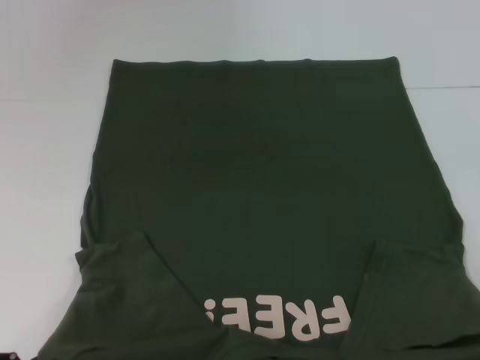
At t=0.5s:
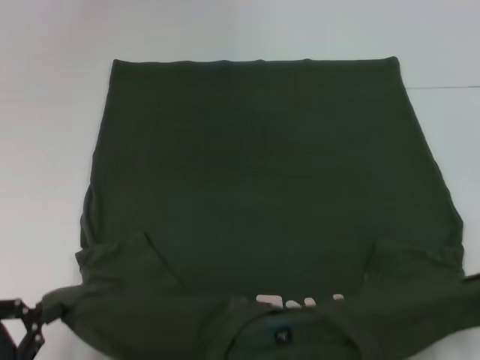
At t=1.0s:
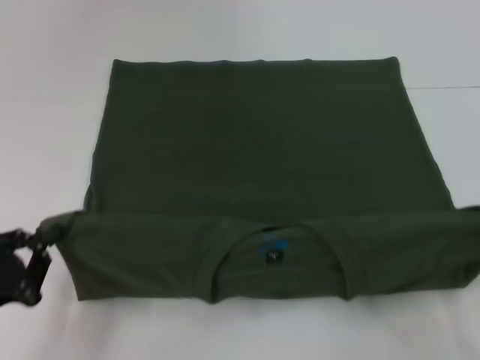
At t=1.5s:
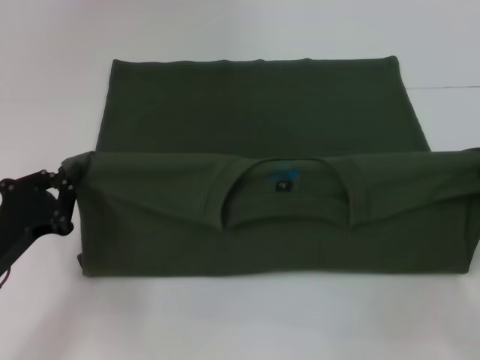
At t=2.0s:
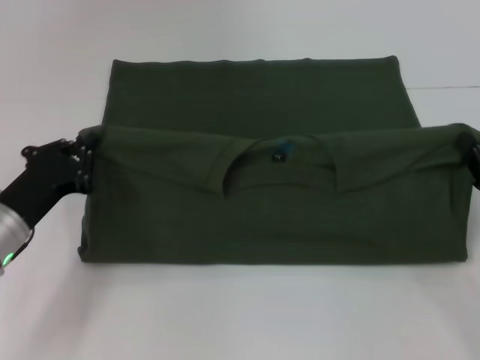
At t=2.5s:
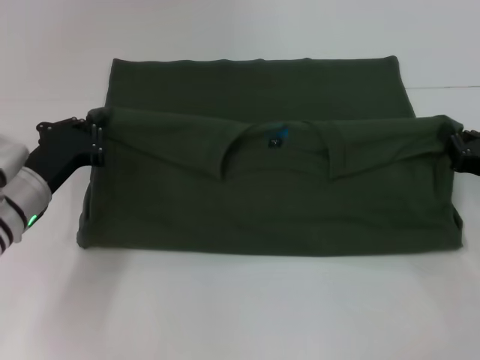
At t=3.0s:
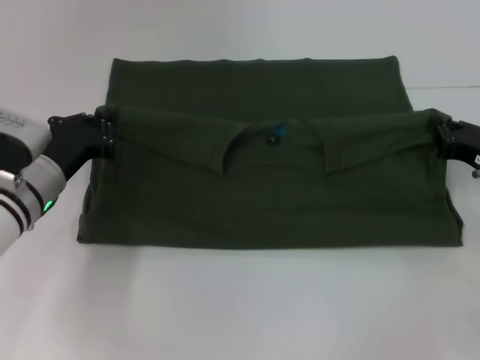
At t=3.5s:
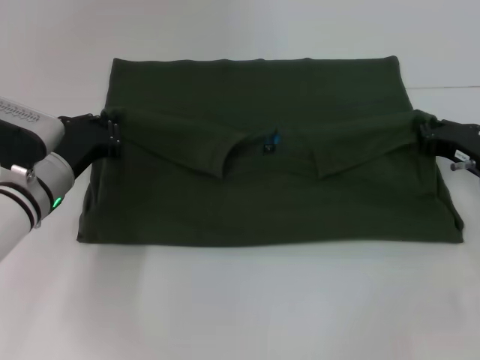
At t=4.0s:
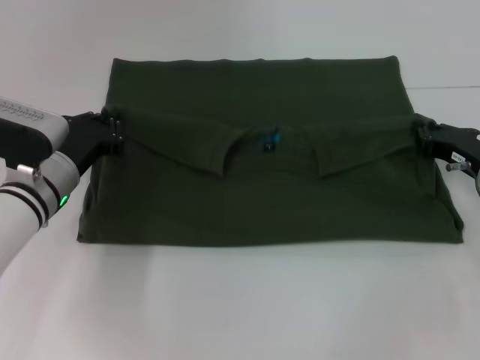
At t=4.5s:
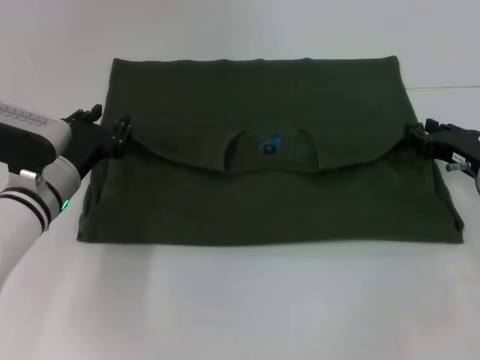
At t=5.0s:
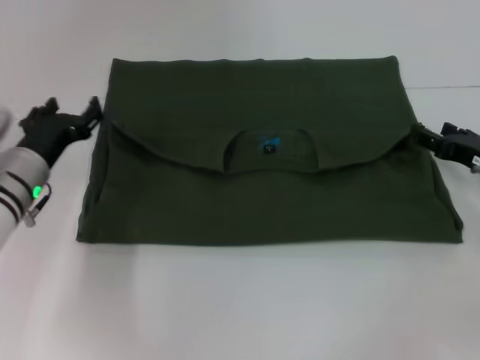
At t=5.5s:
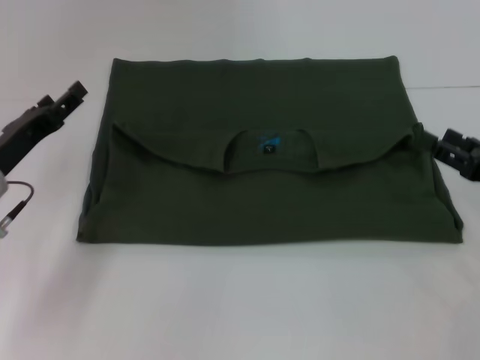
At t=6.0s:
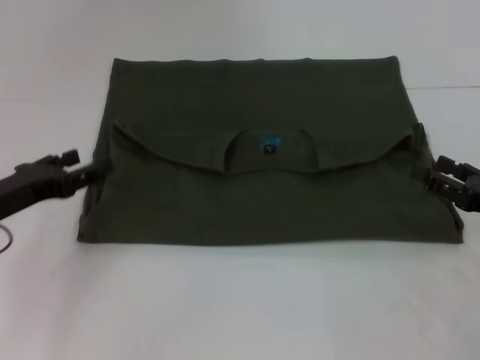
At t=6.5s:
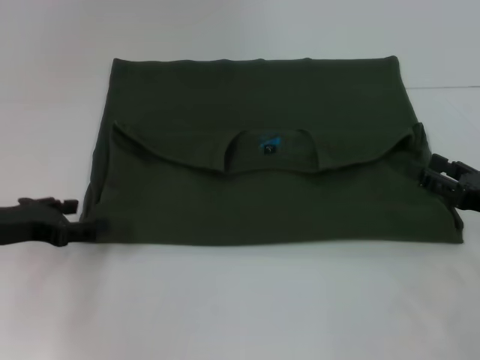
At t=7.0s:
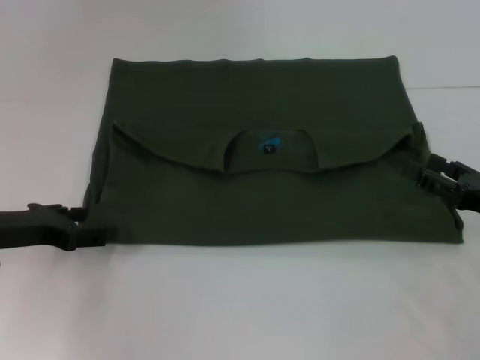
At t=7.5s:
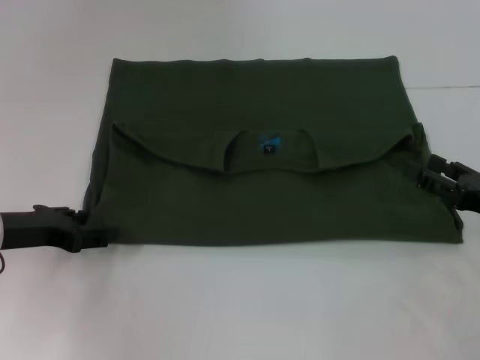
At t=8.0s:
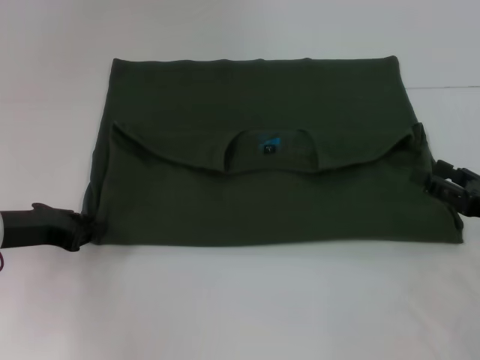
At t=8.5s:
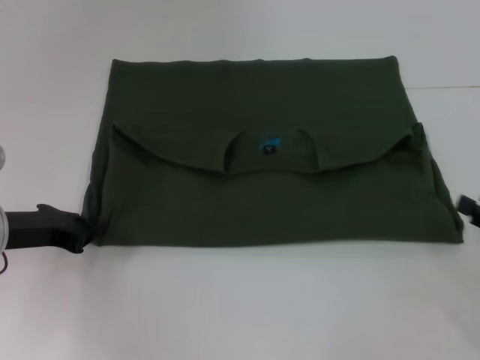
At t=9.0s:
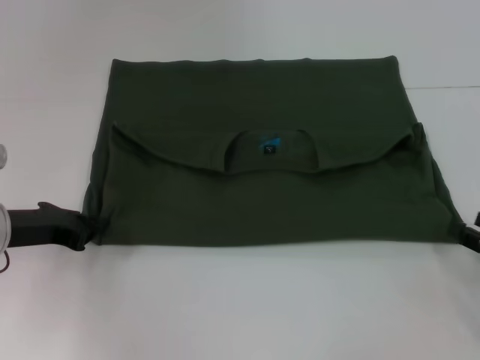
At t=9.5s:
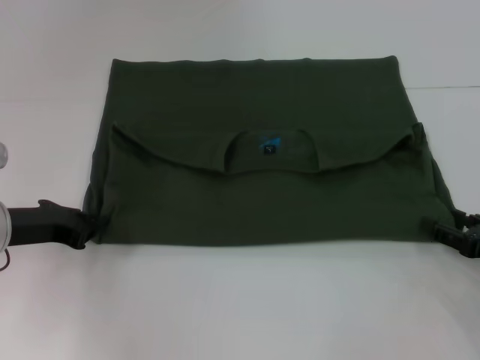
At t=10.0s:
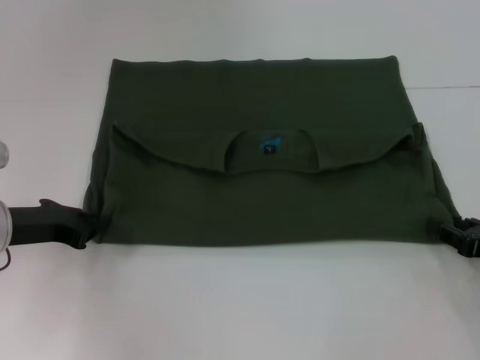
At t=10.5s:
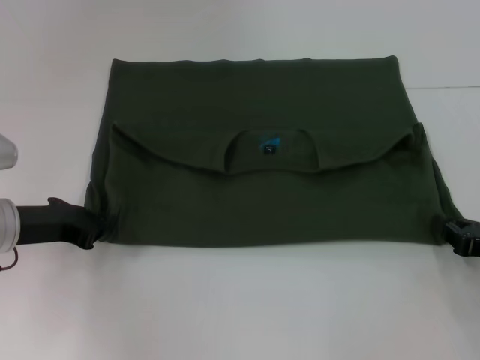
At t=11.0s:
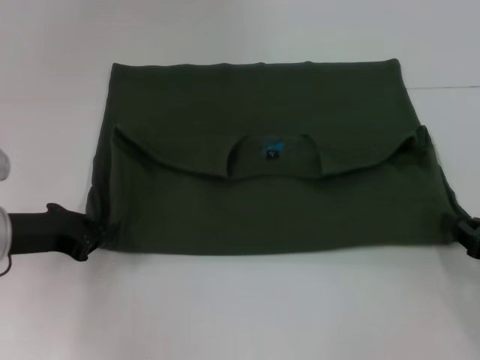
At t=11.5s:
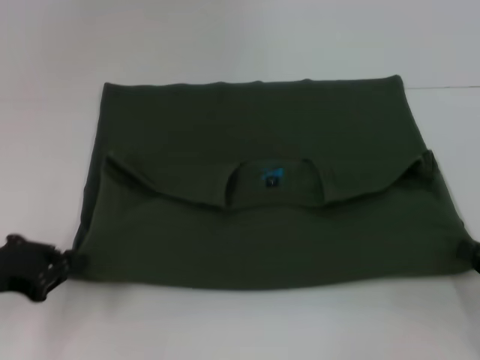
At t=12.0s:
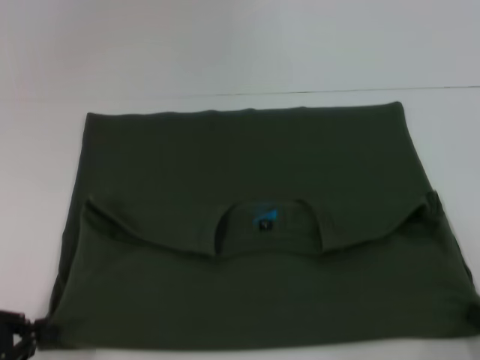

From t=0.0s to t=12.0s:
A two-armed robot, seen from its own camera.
Step, from t=0.0s to t=4.5s: Fold the clothes with your left hand.
Step, from t=0.0s to t=4.5s: Fold the clothes with your right hand.
From t=0.0s to t=2.0s: The two grippers go approximately 20 cm forward.
From t=2.0s to t=4.0s: The two grippers go about 10 cm forward.
From t=4.0s to t=6.0s: The left gripper goes approximately 10 cm to the left and backward, and opens up. Meanwhile the right gripper goes approximately 10 cm backward, and opens.
From t=6.0s to t=8.0s: The left gripper closes up.
From t=8.0s to t=10.0s: The left gripper closes its fingers.
From t=10.0s to t=12.0s: The right gripper travels backward by roughly 10 cm, and closes up, while the left gripper heads backward and to the left, covering roughly 15 cm.

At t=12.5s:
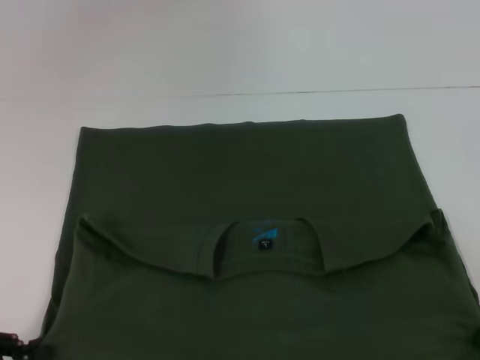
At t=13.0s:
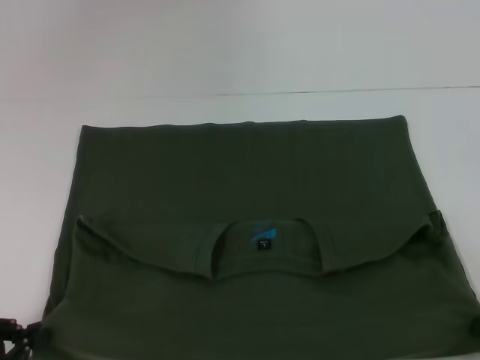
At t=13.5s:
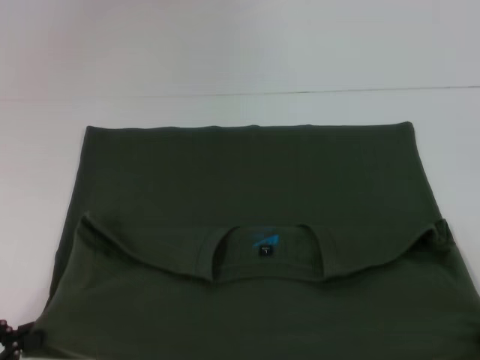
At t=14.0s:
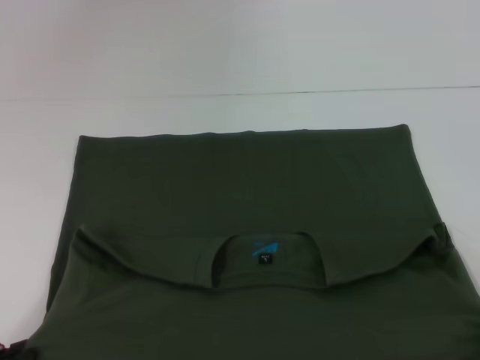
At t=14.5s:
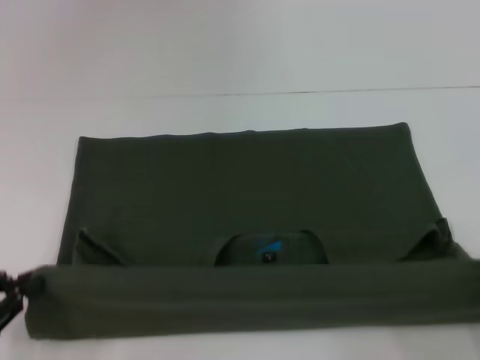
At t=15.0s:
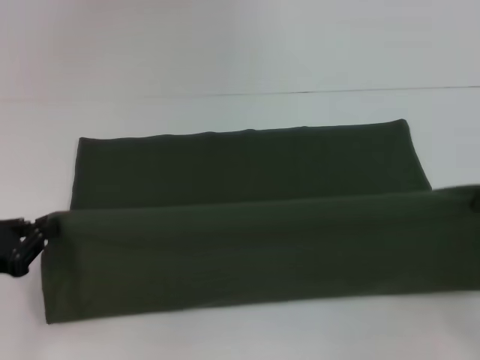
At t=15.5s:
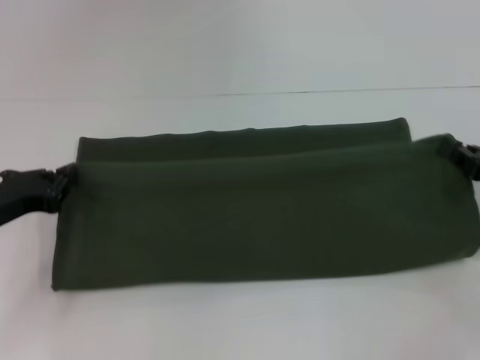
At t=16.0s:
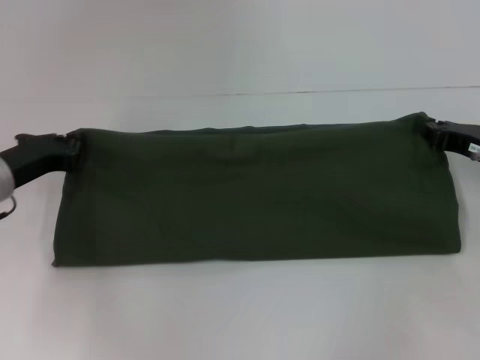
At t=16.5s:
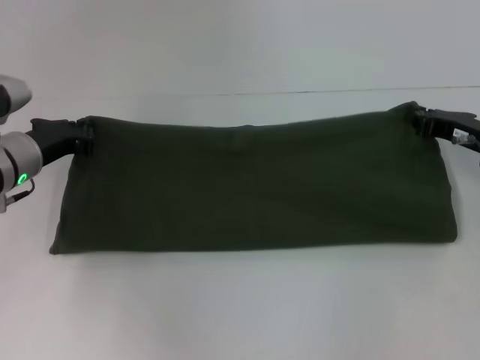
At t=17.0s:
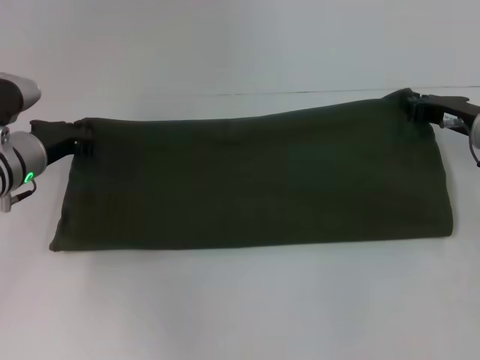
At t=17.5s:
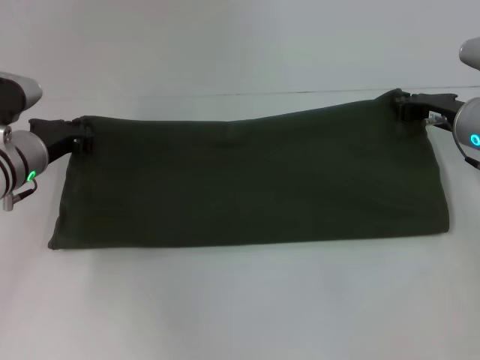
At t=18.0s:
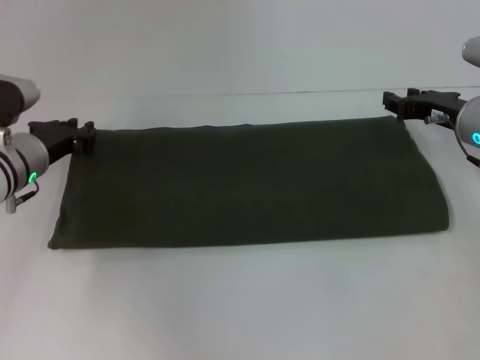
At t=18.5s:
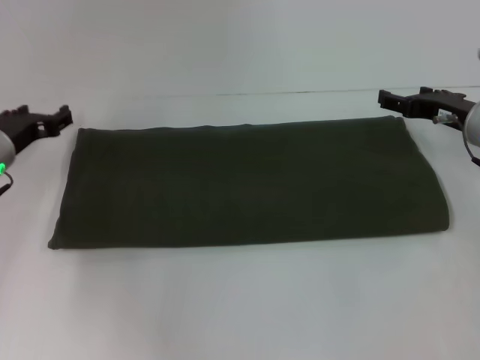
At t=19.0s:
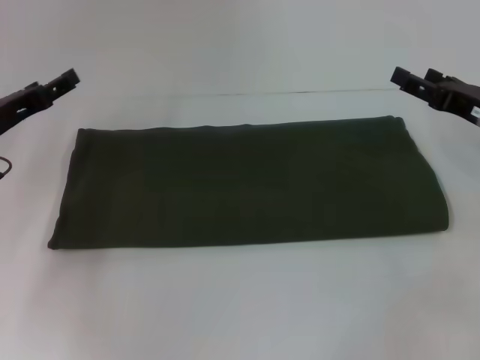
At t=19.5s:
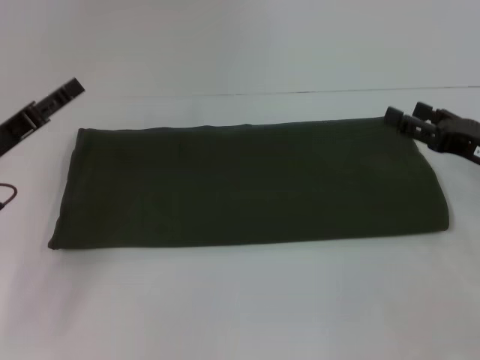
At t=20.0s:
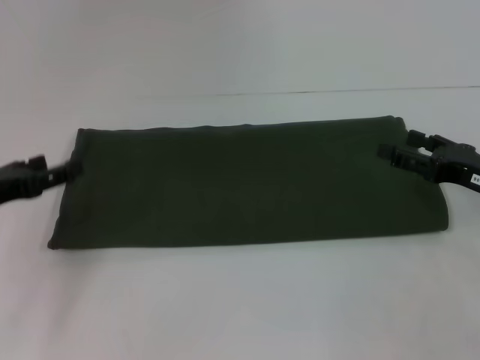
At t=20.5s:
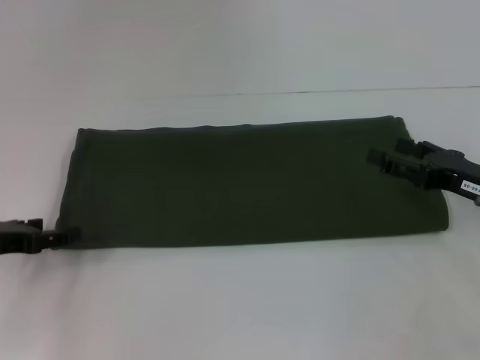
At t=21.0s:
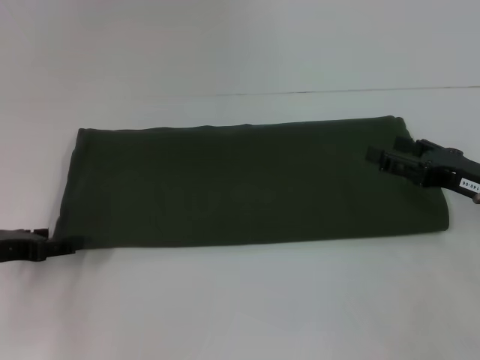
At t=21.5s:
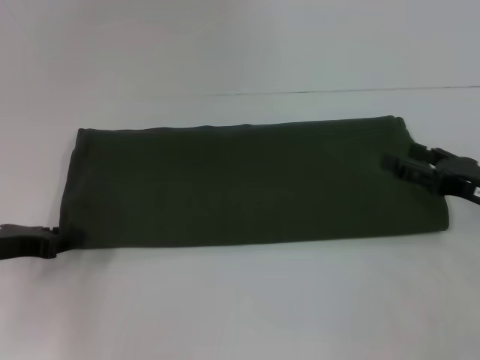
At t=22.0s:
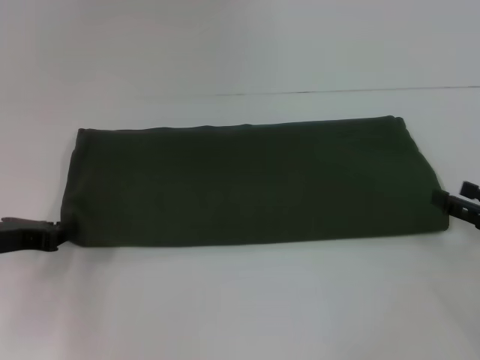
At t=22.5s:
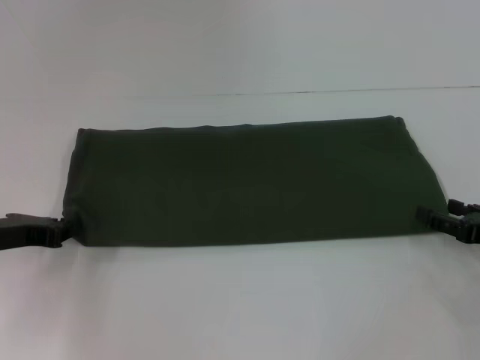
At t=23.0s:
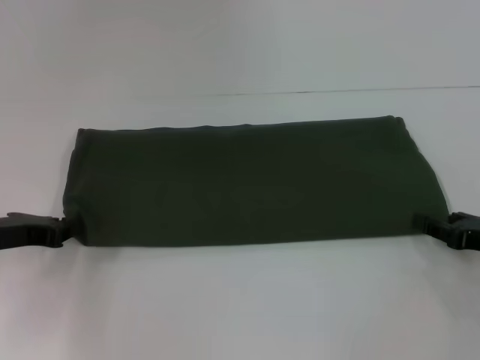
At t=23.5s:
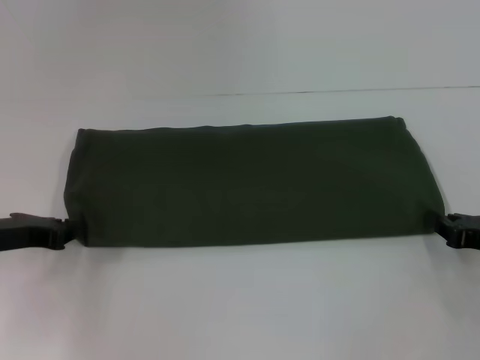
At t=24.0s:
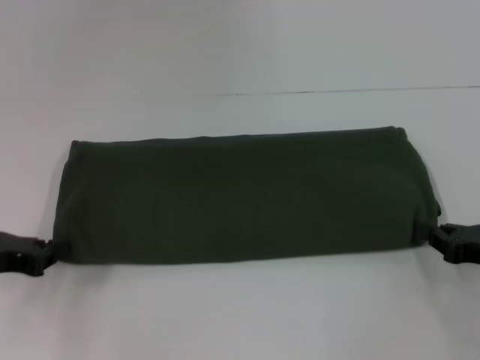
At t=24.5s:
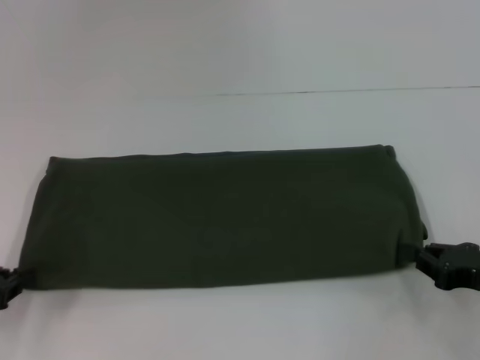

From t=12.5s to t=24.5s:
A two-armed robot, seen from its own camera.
Step, from t=14.0s to t=18.0s: Fold the clothes with your right hand.
From t=12.5s to t=14.5s: The grippers stay close to where they were, moving slightly.
From t=14.5s to t=16.5s: The right gripper goes approximately 25 cm forward. The left gripper moves forward and to the right, roughly 25 cm.
From t=16.5s to t=18.5s: The left gripper opens its fingers. The right gripper opens up.
From t=18.5s to t=20.5s: The right gripper heads backward, covering some 10 cm. Meanwhile the left gripper heads backward and to the left, covering approximately 10 cm.
From t=20.5s to t=22.5s: The right gripper changes place by some 5 cm. Meanwhile the left gripper closes.
From t=22.5s to t=24.5s: The right gripper closes. Meanwhile the left gripper heads backward, covering about 5 cm.

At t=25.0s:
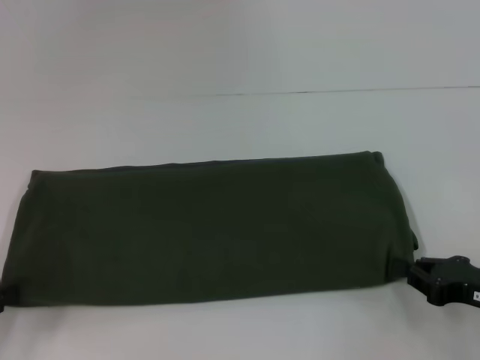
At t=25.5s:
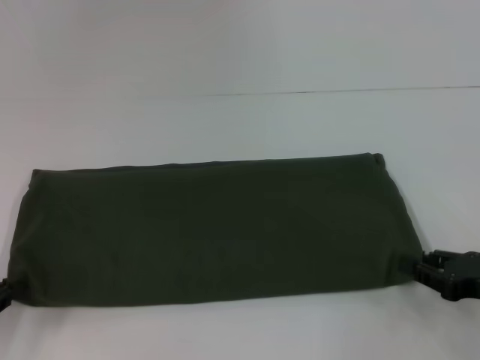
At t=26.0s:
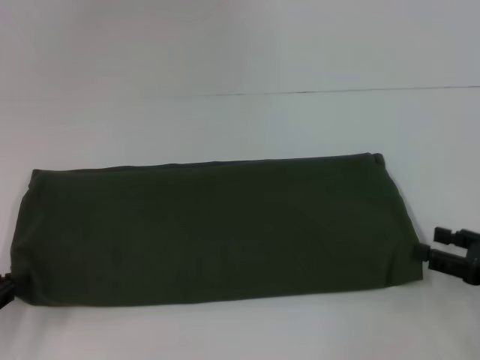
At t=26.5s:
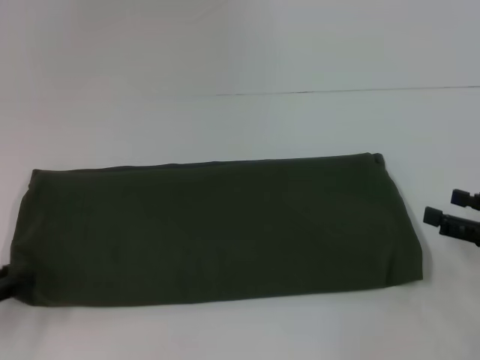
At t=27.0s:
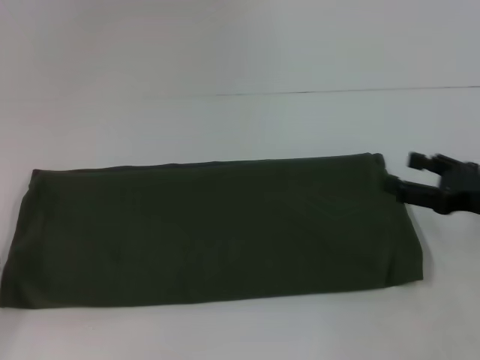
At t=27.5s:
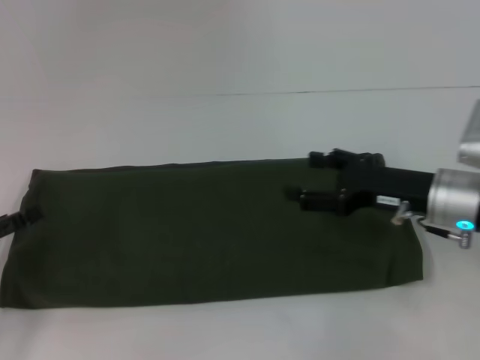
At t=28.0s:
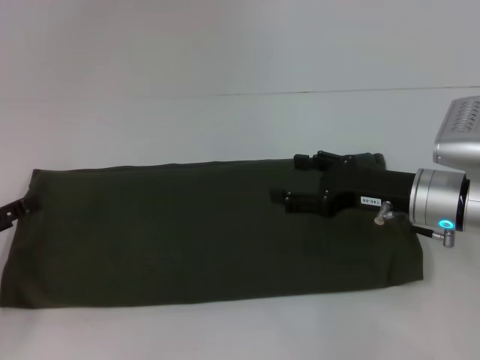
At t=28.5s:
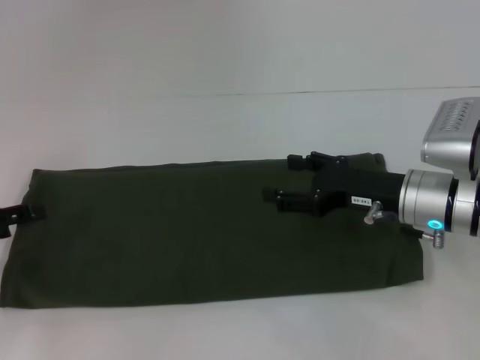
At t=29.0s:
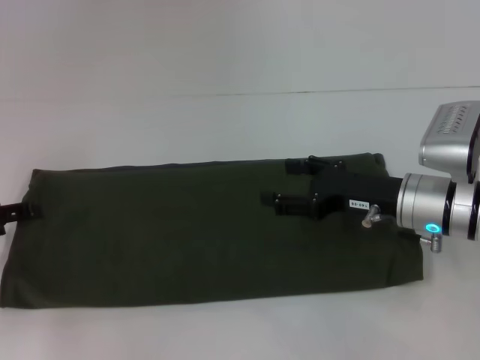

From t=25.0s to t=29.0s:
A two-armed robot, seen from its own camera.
From t=25.0s to t=27.0s: The left gripper opens. Meanwhile the right gripper shifts some 10 cm forward and upward, and opens.
From t=27.0s to t=29.0s: The left gripper shifts some 10 cm forward. The right gripper heads to the left, covering roughly 10 cm.
